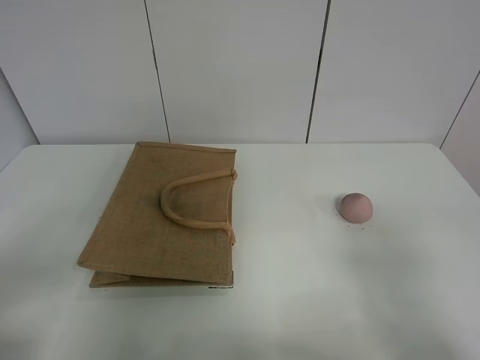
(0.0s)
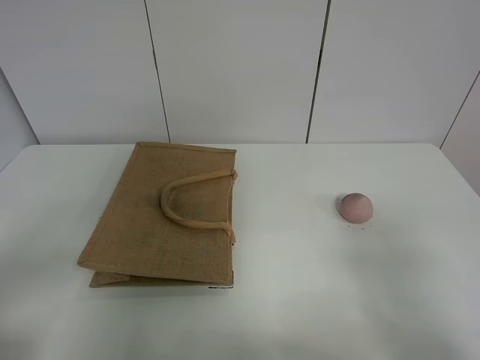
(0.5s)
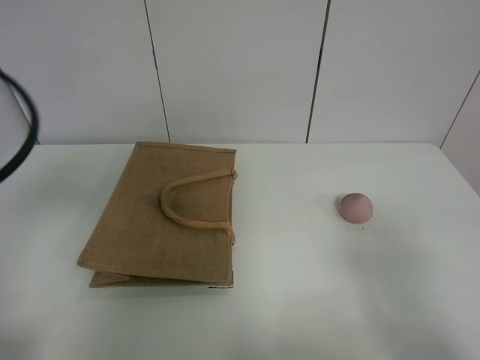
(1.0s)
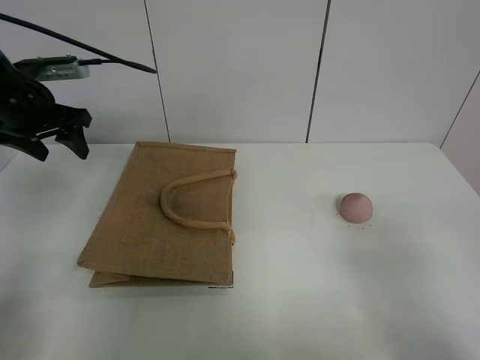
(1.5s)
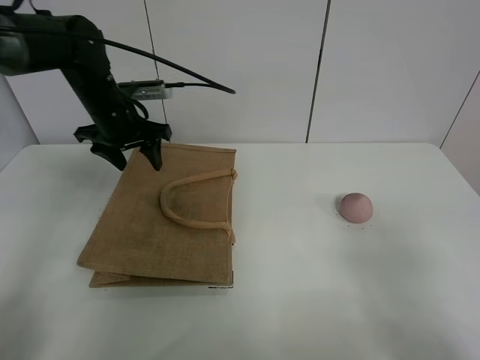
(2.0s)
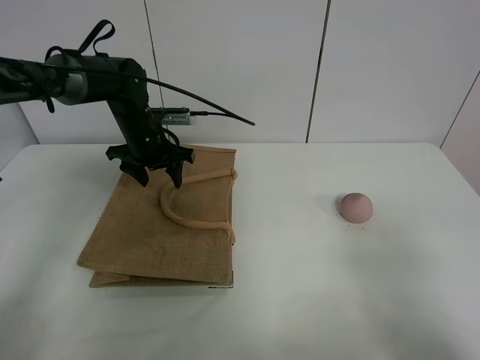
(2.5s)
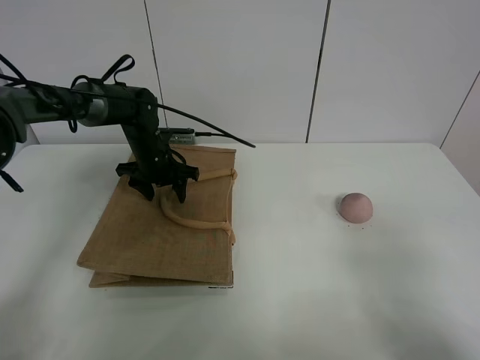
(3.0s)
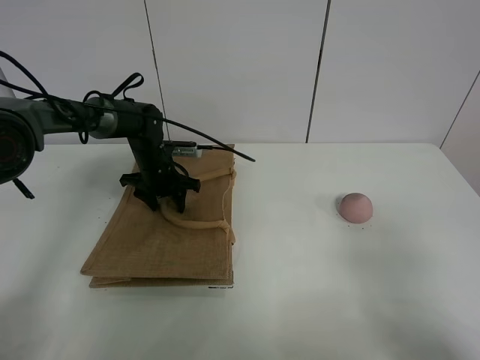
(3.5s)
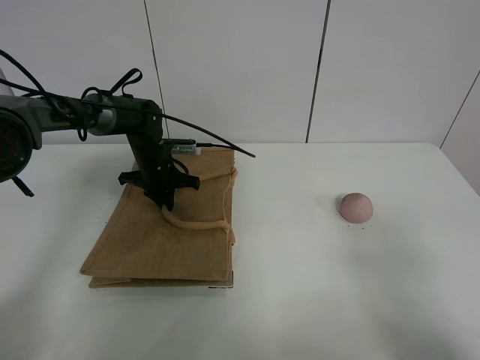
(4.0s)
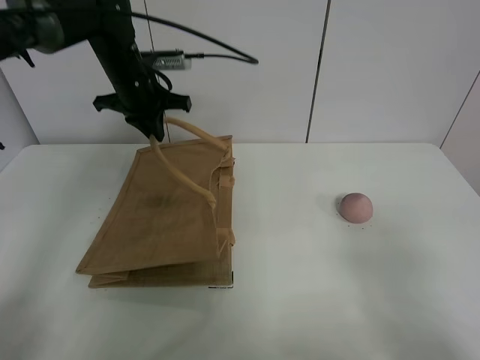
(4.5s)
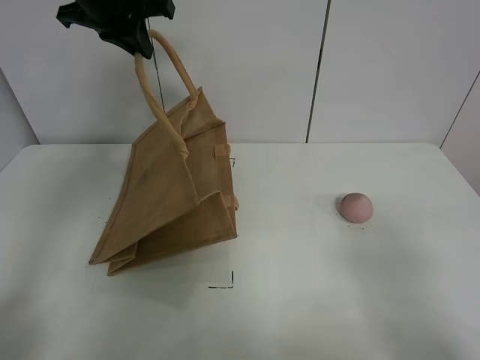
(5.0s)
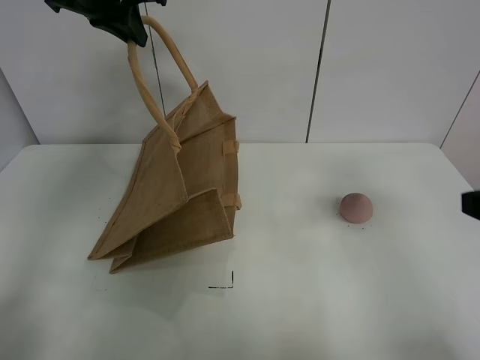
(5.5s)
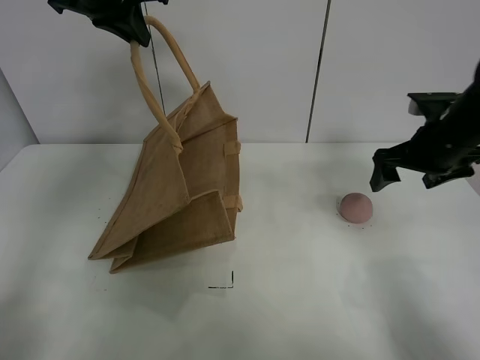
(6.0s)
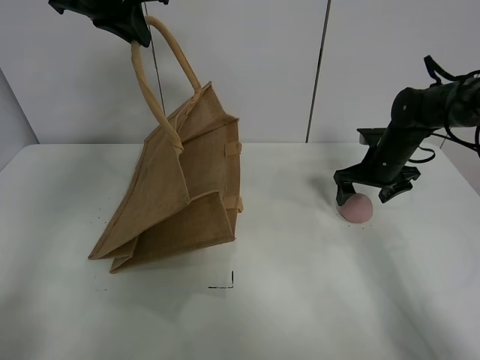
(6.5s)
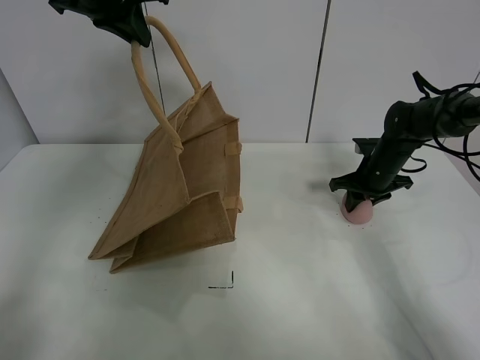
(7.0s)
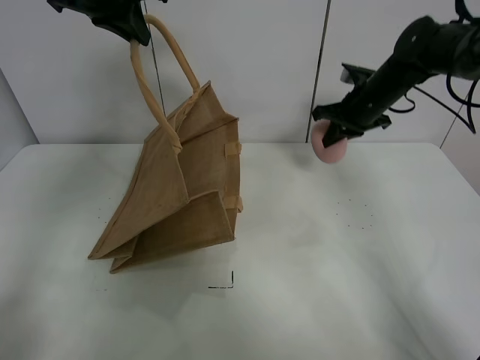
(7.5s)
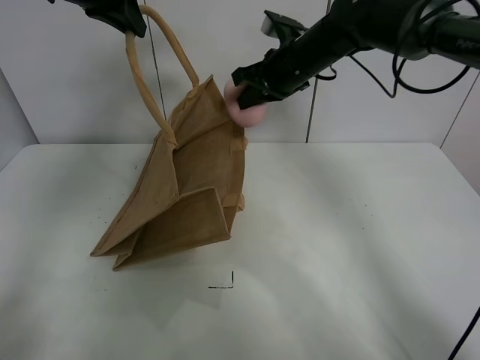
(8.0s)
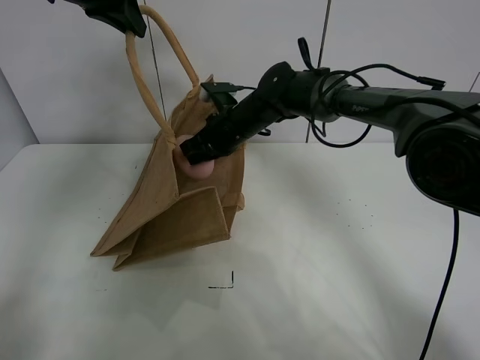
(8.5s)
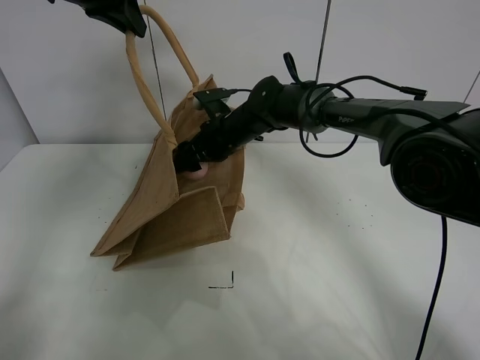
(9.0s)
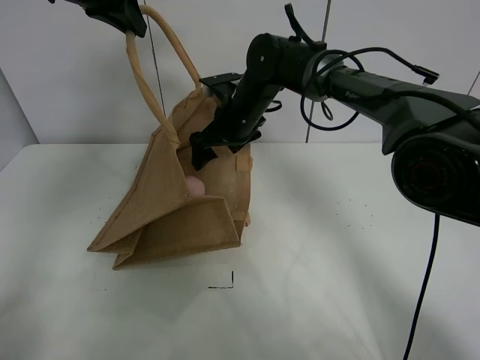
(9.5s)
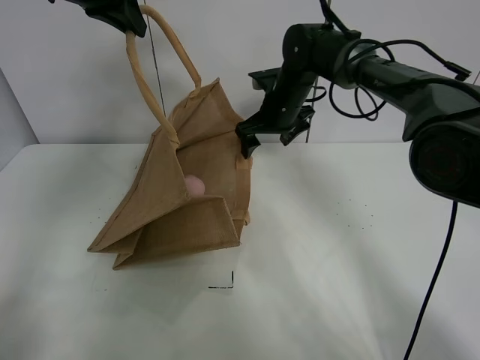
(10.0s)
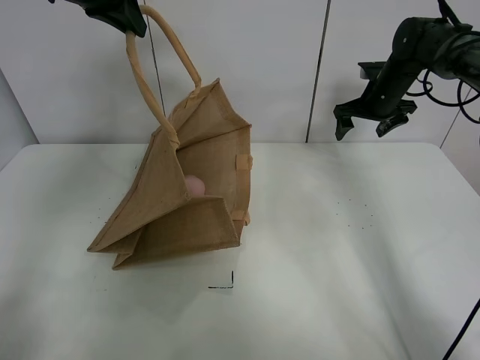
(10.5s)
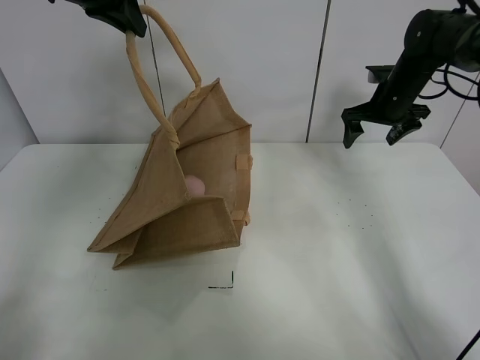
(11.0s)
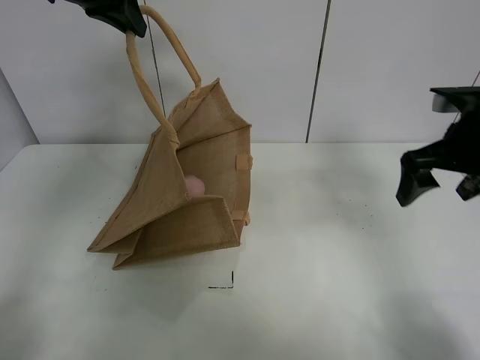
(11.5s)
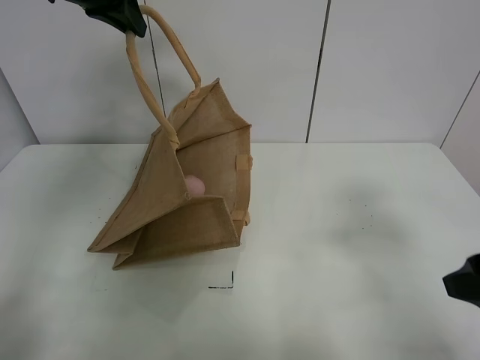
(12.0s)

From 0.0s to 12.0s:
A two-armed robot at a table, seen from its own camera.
Task of the whole recording: open the brown linen bag and put the peach in the bag.
Step, from 0.0s to 5.0s: Lift the handbag with left gripper.
Step, from 5.5s to 7.0s: Grasp the peach with right gripper.
Step, from 7.5s to 10.0s: Place the peach in the handbag with right gripper.
From 0.0s to 2.0s: The left gripper travels forward by roughly 40 cm.
From 2.0s to 4.0s: The left gripper travels downward by roughly 15 cm, and closes its fingers.
From 4.0s to 6.0s: The left gripper heads upward, covering roughly 30 cm. The right gripper travels forward by approximately 35 cm.
From 6.0s to 8.0s: The right gripper shifts about 20 cm to the left and forward, and closes its fingers.
From 8.0s to 10.0s: The right gripper moves downward, roughly 5 cm, and opens.
From 10.0s to 12.0s: The right gripper shifts approximately 40 cm backward and to the right.

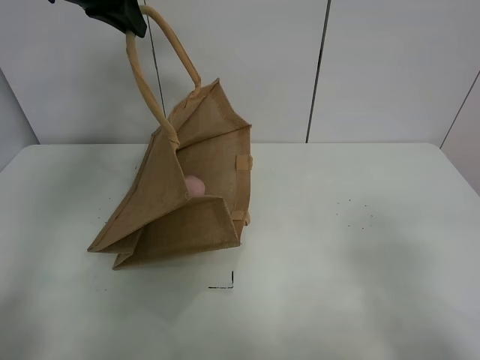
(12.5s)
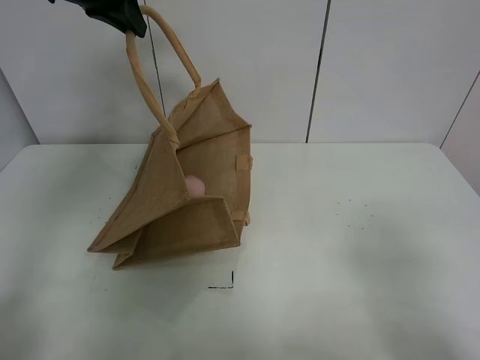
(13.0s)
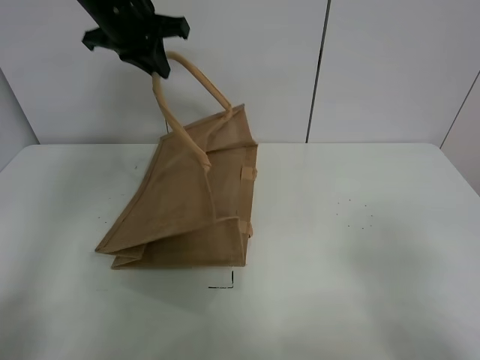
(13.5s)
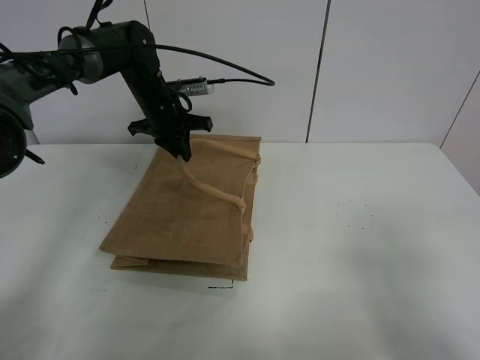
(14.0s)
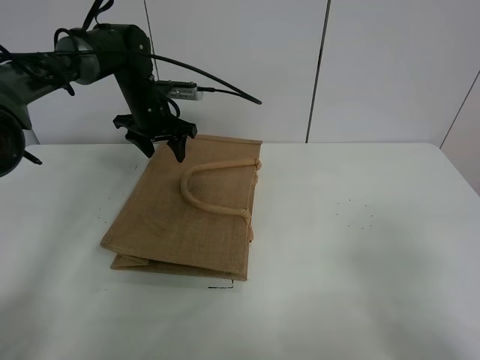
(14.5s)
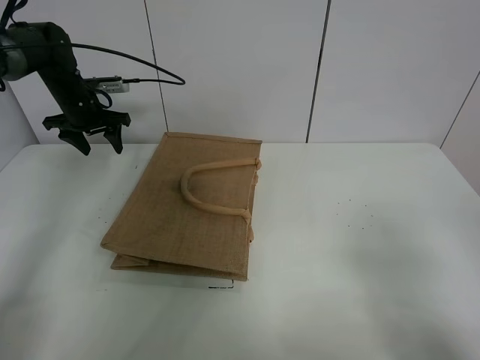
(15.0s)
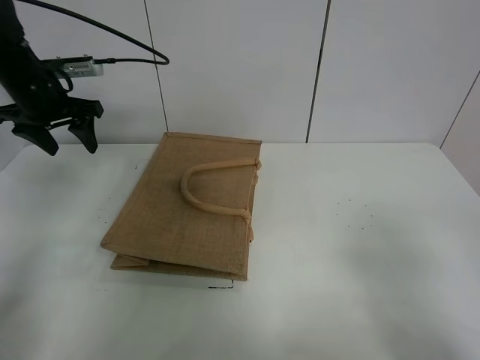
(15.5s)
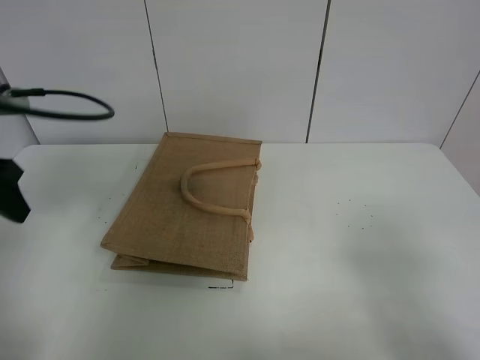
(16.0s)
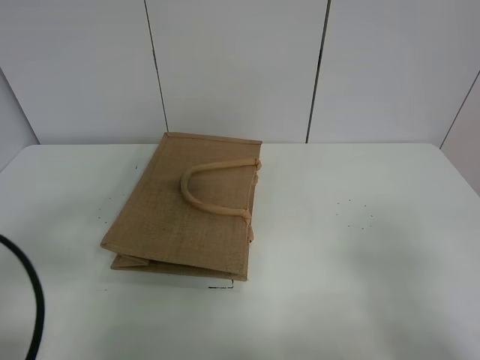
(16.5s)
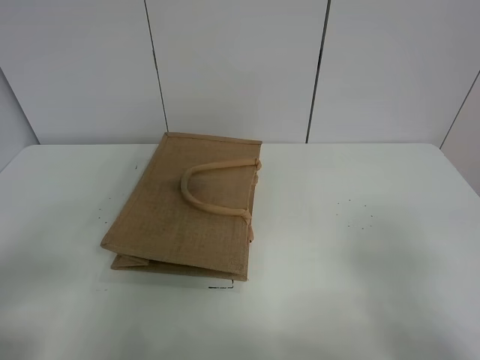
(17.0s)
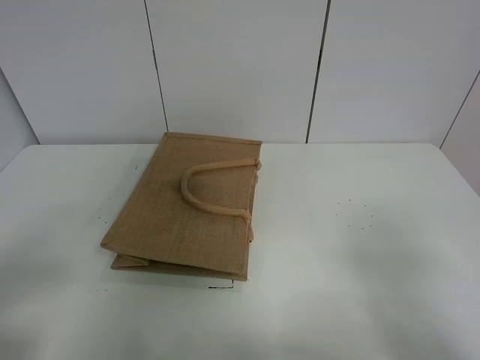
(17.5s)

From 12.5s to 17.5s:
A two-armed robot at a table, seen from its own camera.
Task of the whole recording: open the brown linen bag and put the peach in the bag.
Step, from 12.5s to 14.5s: Put down the handbag with left grippe.
From 12.5s to 15.0s: The left gripper moves downward, to the left and forward, some 25 cm, and opens its fingers.
From 15.0s to 17.5s: The left gripper shifts roughly 50 cm backward.
